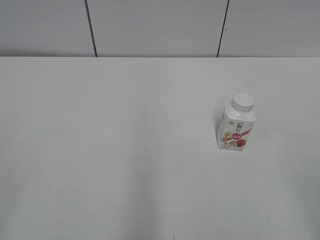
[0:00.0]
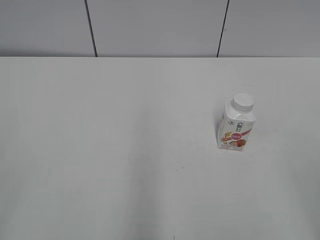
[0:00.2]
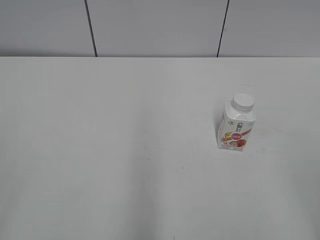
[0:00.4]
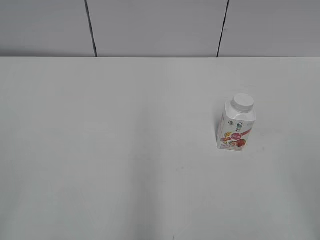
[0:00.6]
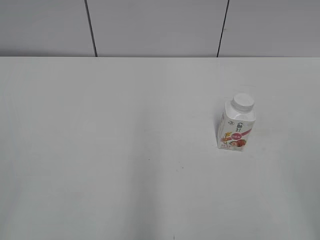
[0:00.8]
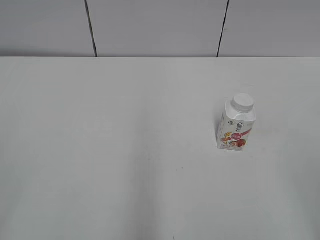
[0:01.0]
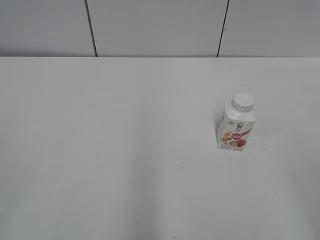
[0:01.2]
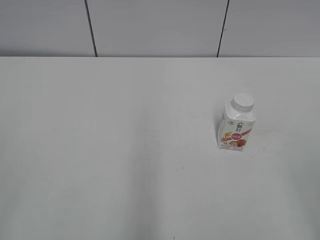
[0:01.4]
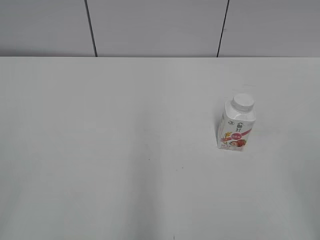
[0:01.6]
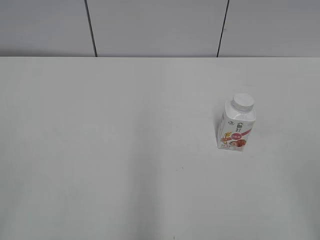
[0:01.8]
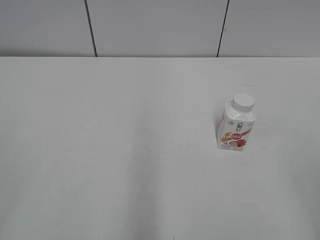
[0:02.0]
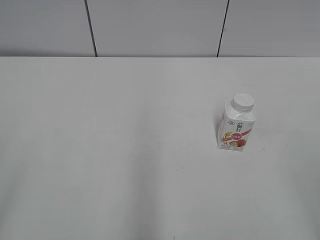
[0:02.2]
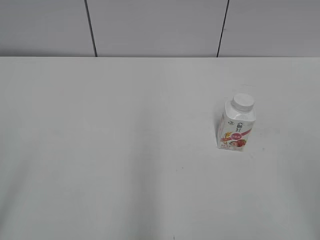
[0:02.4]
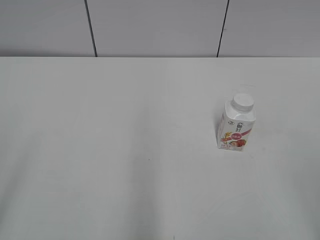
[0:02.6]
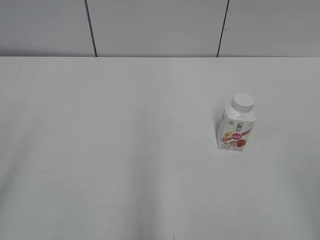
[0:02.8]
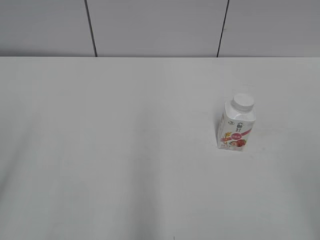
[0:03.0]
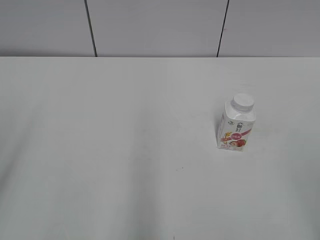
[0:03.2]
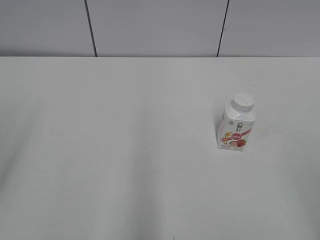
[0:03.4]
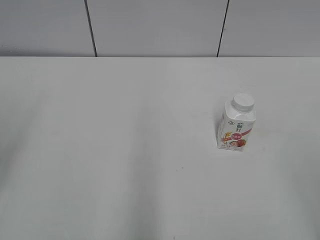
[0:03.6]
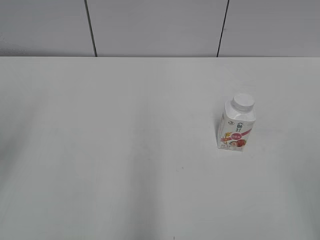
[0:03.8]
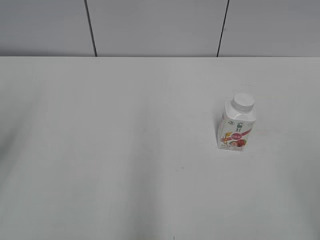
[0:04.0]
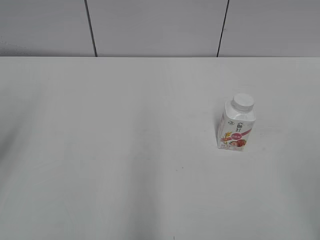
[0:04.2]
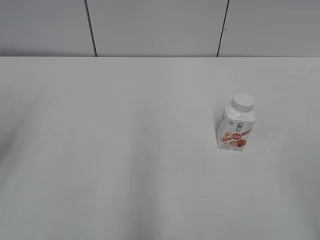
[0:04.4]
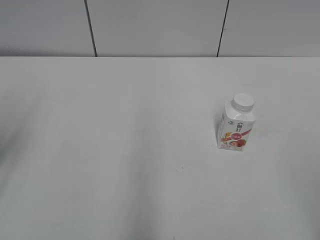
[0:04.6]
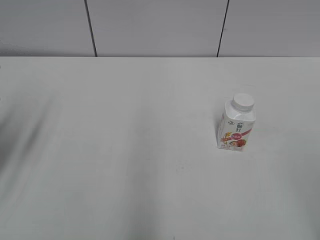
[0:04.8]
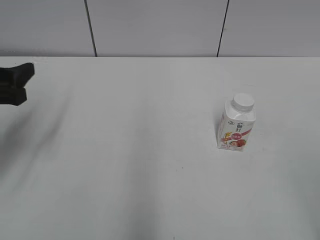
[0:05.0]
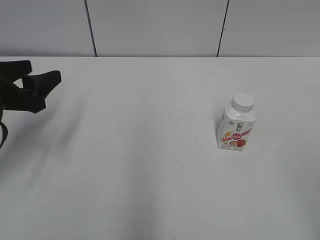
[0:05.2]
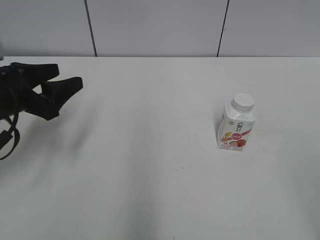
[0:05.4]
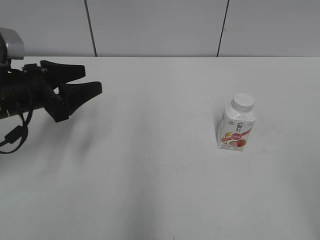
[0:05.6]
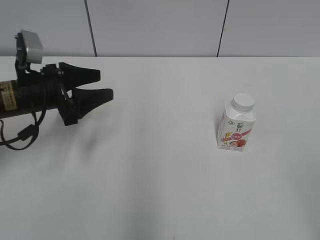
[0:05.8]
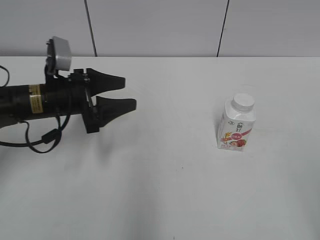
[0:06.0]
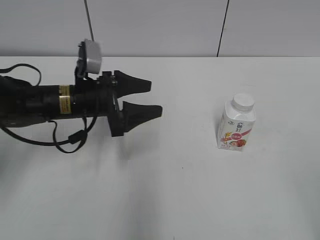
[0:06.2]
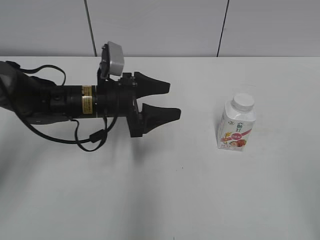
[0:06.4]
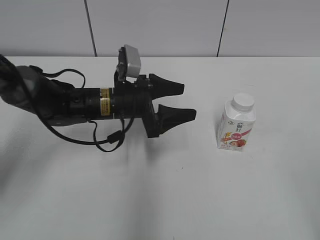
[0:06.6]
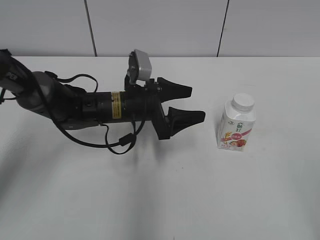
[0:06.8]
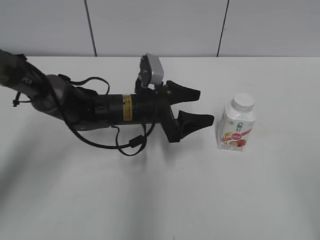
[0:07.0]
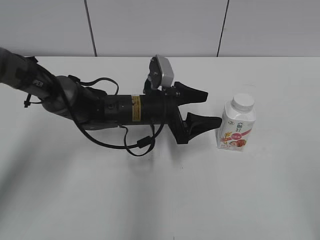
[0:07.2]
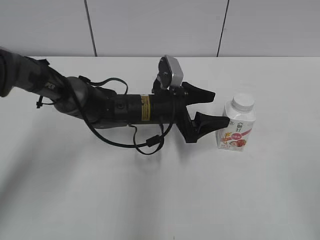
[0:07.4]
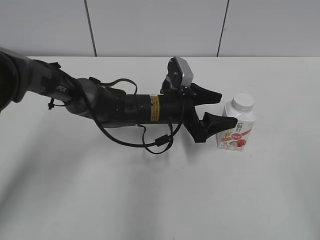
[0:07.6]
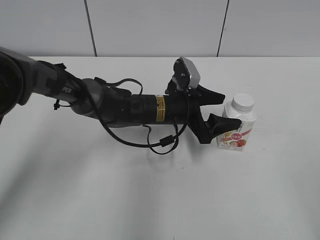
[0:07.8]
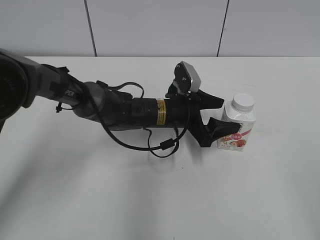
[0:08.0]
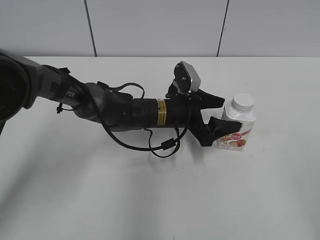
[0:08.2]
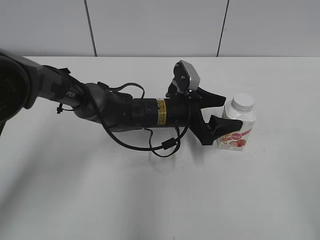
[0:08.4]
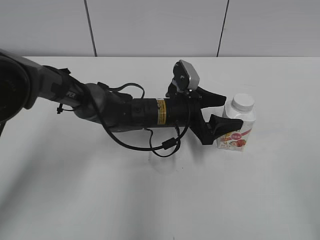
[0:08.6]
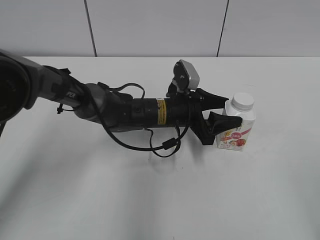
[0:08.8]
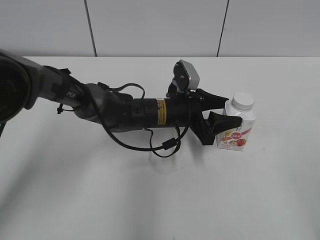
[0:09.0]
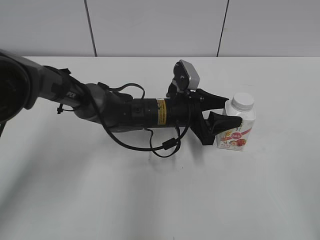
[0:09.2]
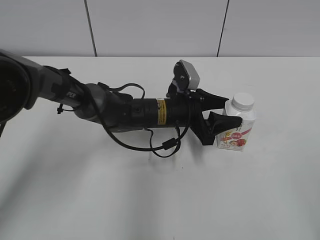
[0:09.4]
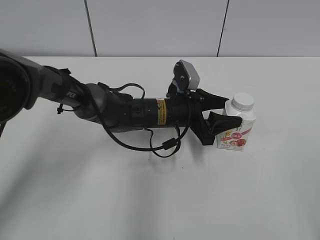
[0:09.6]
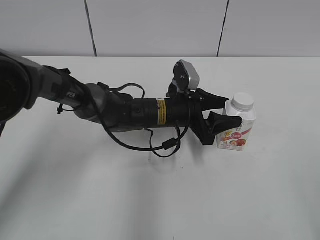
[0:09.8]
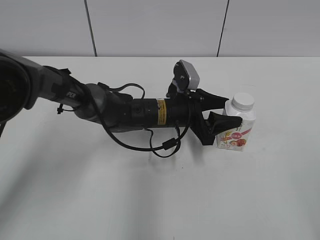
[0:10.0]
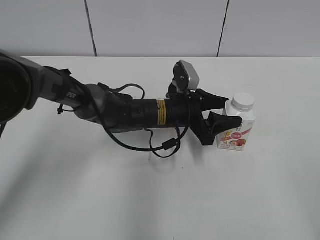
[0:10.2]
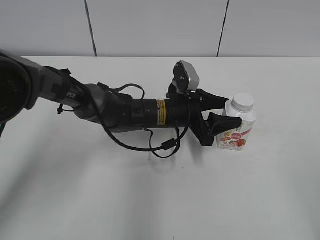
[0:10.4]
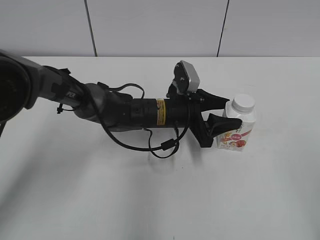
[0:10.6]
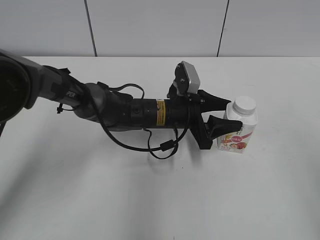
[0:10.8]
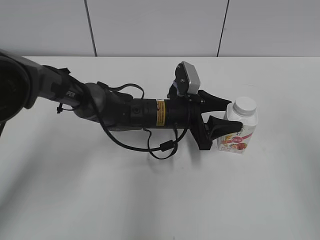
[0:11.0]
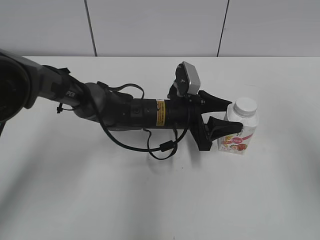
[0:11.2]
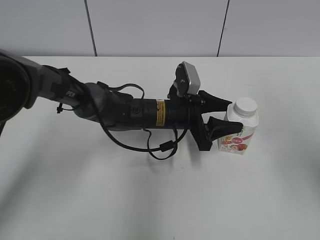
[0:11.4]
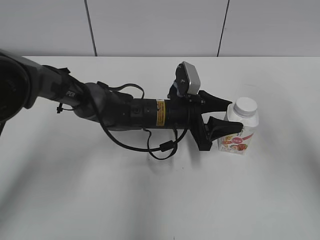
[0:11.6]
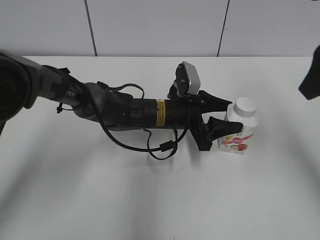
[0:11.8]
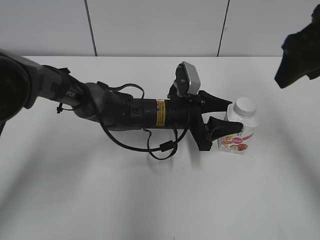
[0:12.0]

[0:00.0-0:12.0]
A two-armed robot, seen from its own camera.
Step, 0:00.0 to 0:09.2: Grab the Yili Changqing with the left hand.
0:04.4 to 0:06.0: The left gripper moves forward, downward and to the right, roughly 25 cm.
0:06.0 to 0:07.6: The left gripper shifts approximately 20 cm to the right.
0:07.6 to 0:09.0: The left gripper closes.
0:09.0 to 0:10.4: Both grippers stay put.
0:10.4 to 0:12.0: The right gripper is displaced forward by roughly 30 cm.

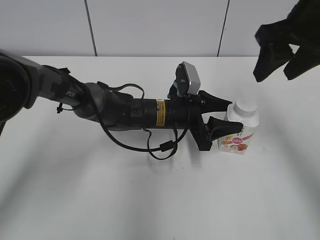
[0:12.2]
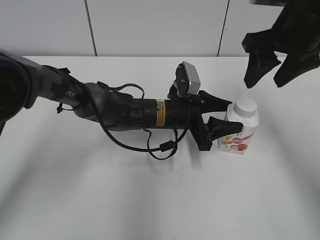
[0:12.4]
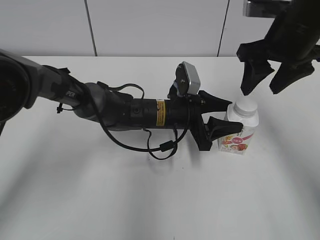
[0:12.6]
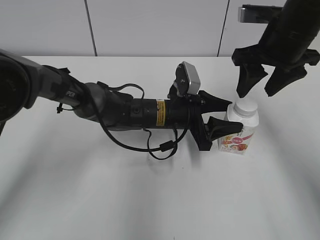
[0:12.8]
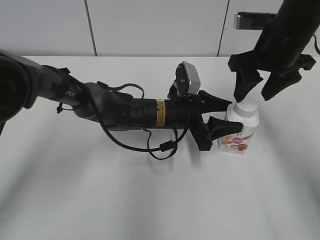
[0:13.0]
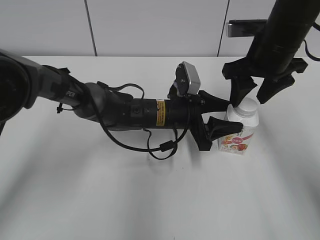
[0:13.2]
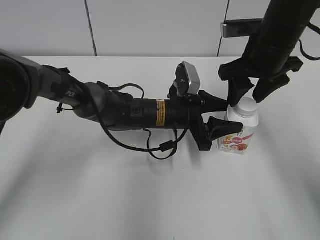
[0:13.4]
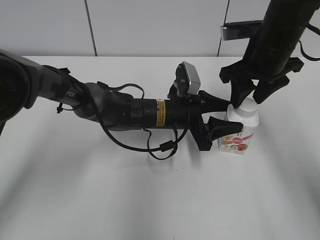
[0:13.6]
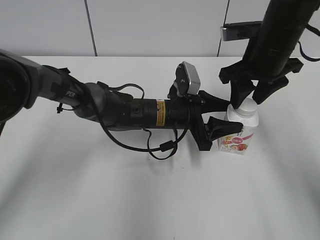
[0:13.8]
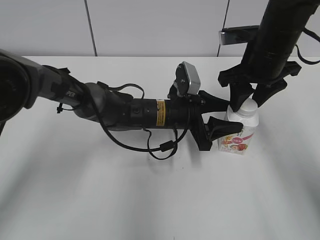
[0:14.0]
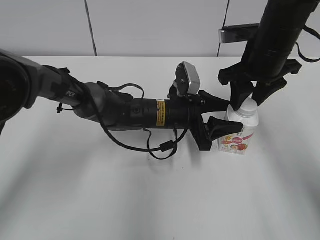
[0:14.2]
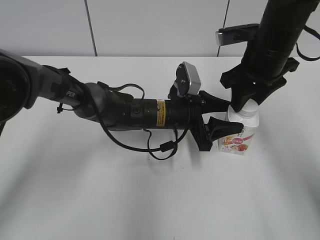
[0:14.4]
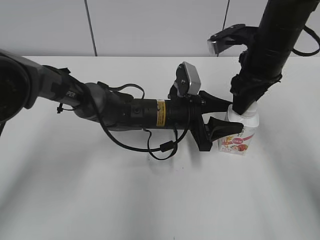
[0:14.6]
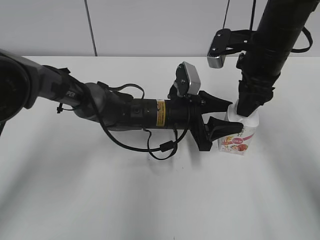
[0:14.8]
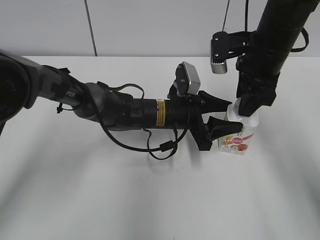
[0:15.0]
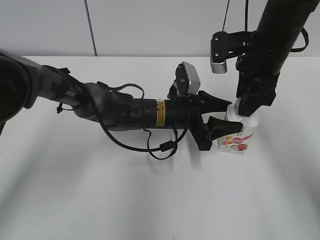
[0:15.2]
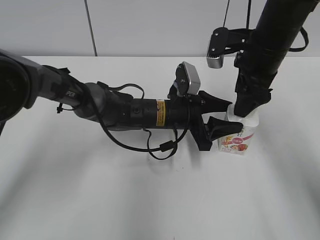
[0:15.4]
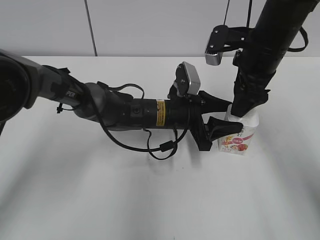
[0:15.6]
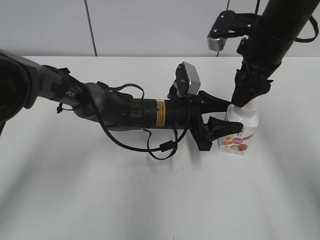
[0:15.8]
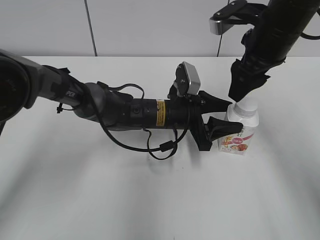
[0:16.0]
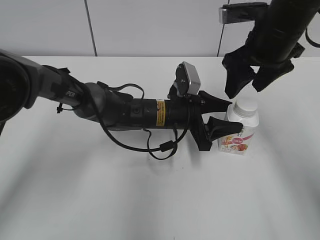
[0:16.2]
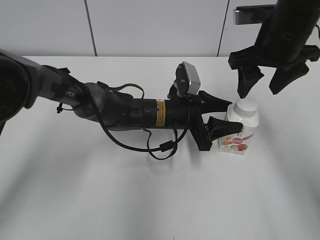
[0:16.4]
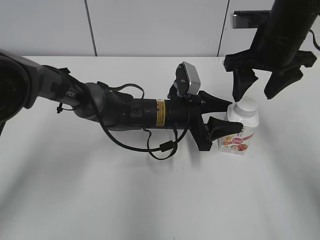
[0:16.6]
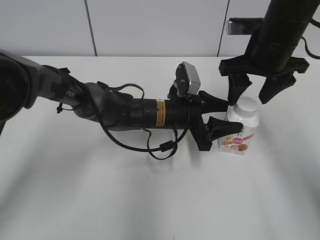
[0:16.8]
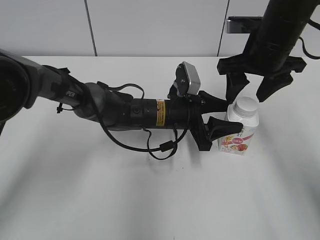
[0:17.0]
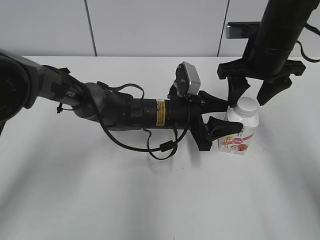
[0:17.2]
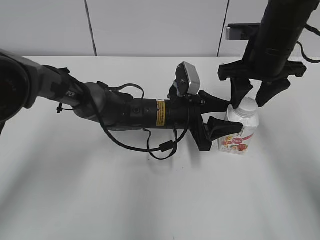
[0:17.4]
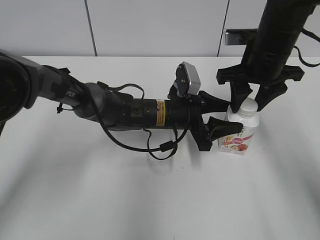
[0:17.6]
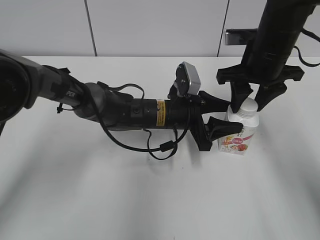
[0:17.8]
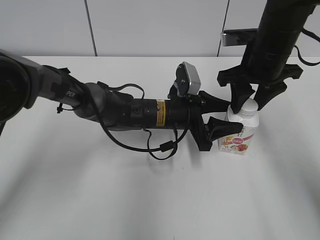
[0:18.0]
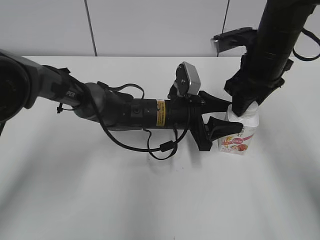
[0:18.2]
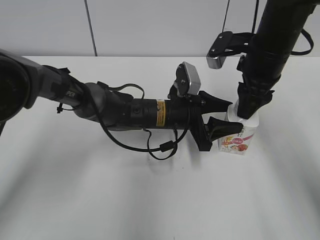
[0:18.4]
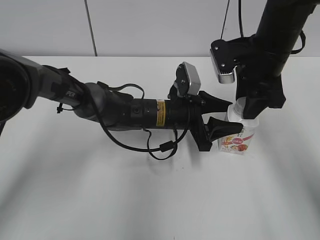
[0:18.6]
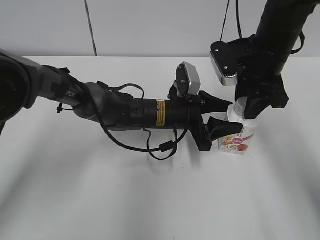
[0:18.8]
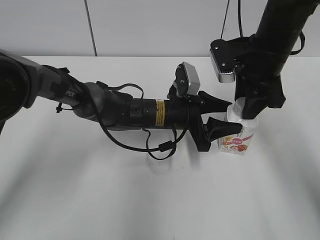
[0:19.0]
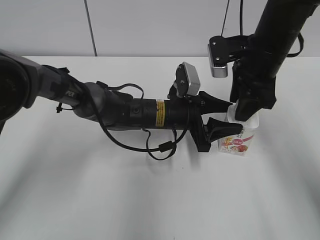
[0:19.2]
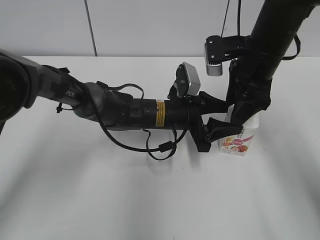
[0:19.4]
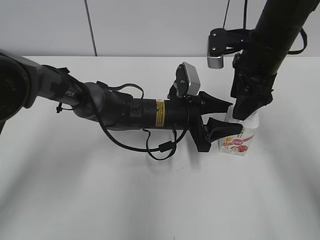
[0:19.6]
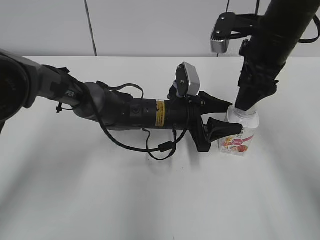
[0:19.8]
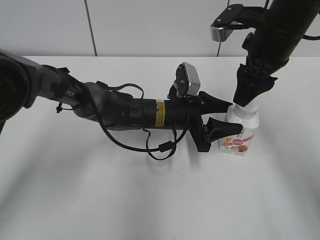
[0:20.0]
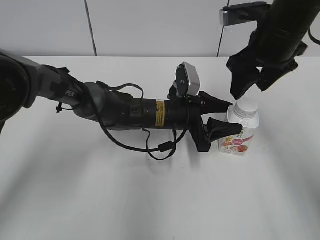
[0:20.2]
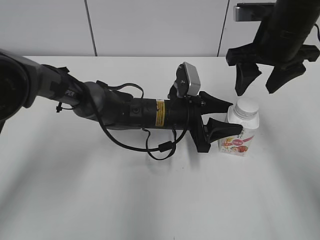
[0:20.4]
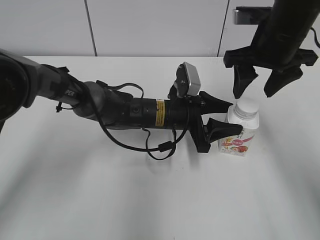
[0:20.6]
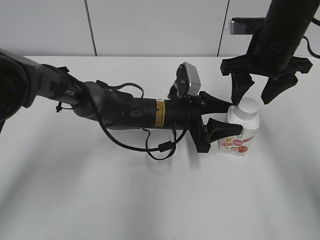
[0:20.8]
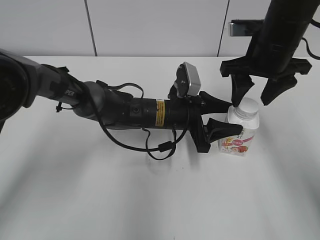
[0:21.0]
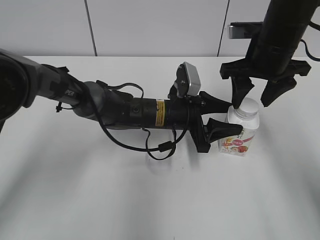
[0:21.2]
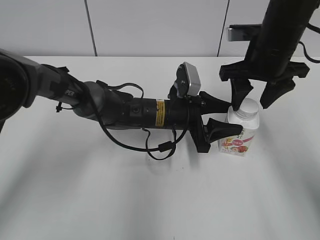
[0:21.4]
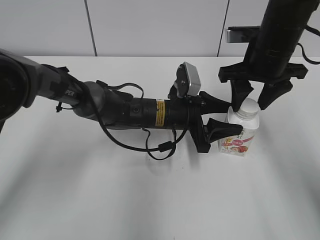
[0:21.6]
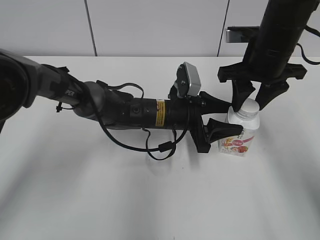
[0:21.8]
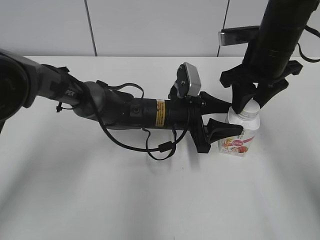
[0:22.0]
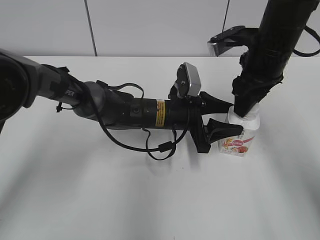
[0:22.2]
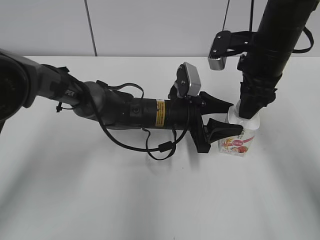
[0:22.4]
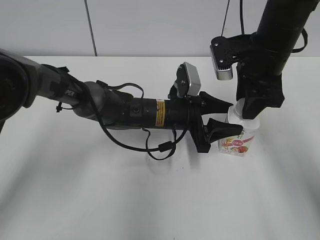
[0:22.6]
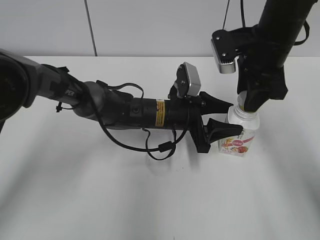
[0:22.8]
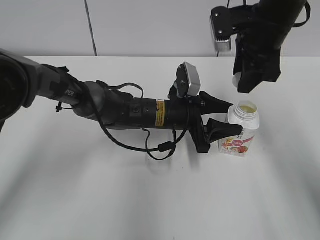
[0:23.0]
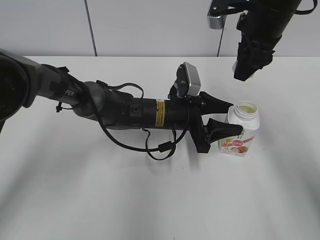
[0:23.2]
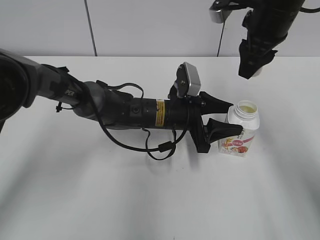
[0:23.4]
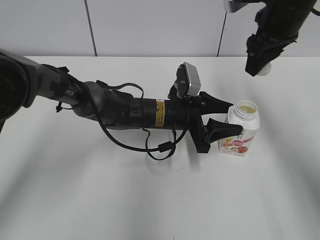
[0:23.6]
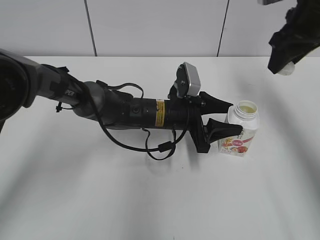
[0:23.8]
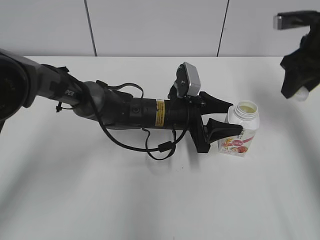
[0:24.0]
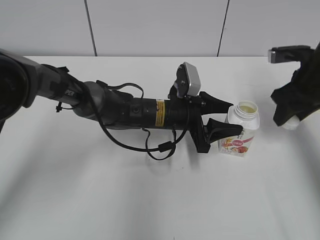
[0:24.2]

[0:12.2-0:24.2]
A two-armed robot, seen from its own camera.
Step, 0:12.2 to 0:22.6: Twist the bottle cap with the right hand.
0:12.2 to 0:13.8: The right gripper shifts about 10 cm downward, and closes its fingers.
0:15.2 to 0:16.6: The right gripper opens.
0:16.6 to 0:18.2: The right gripper closes its fingers.
0:18.2 to 0:19.8: The right gripper opens up.
0:21.2 to 0:22.6: The right gripper closes up.
0:22.6 to 0:24.2: The right gripper goes some 10 cm to the right.
